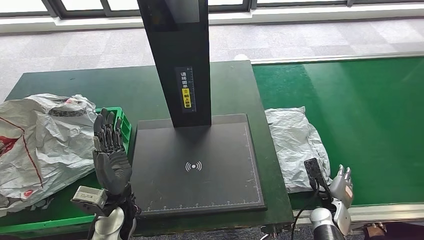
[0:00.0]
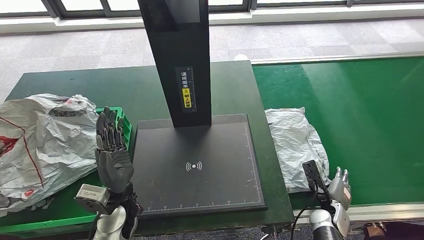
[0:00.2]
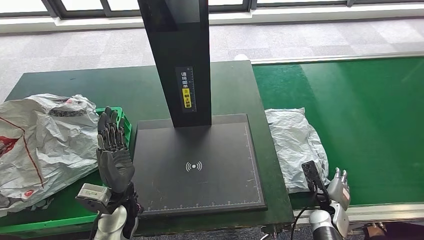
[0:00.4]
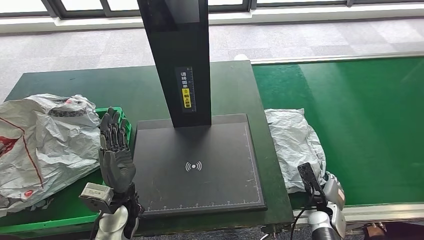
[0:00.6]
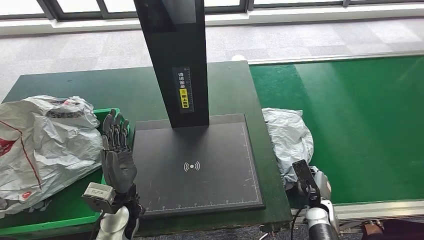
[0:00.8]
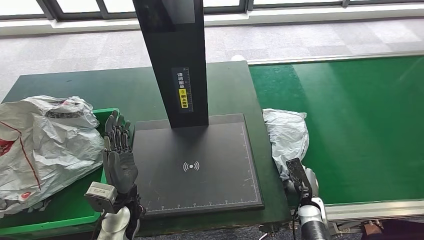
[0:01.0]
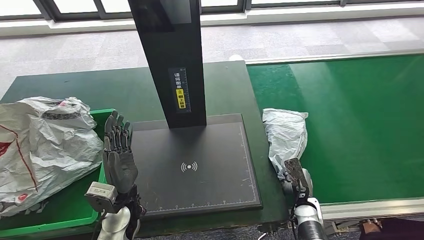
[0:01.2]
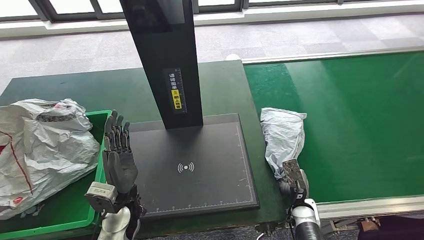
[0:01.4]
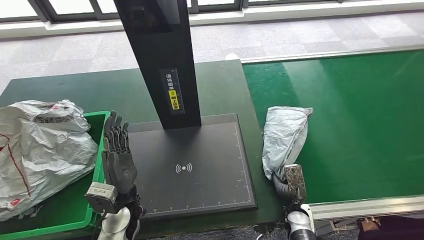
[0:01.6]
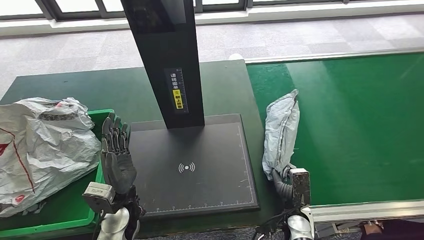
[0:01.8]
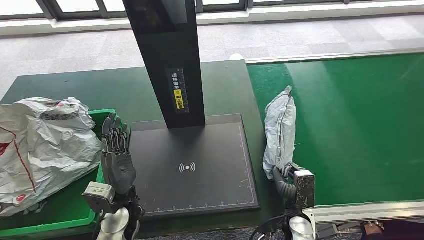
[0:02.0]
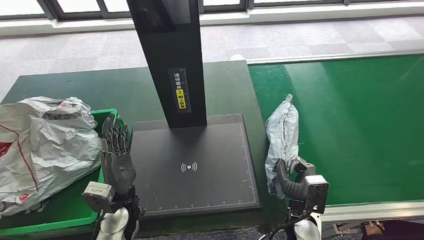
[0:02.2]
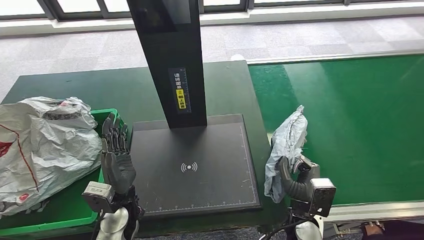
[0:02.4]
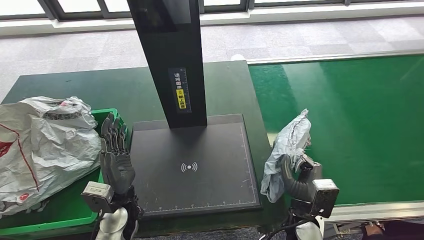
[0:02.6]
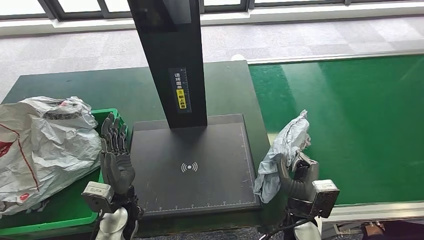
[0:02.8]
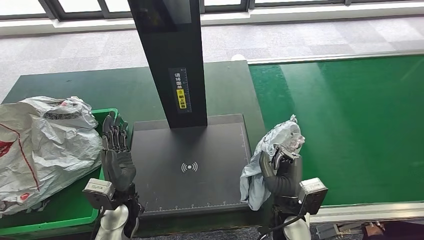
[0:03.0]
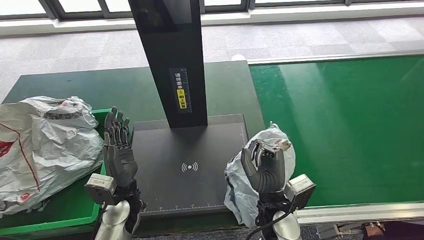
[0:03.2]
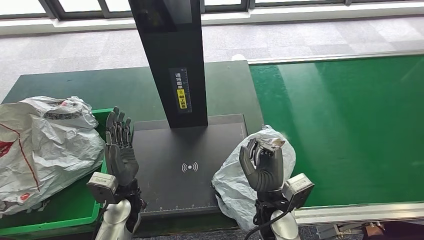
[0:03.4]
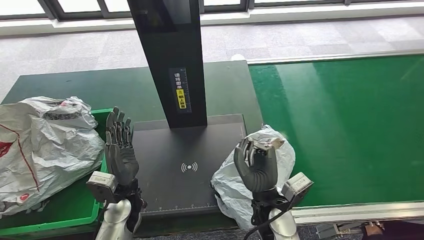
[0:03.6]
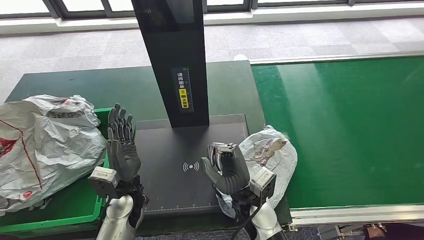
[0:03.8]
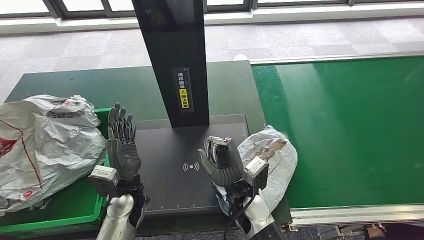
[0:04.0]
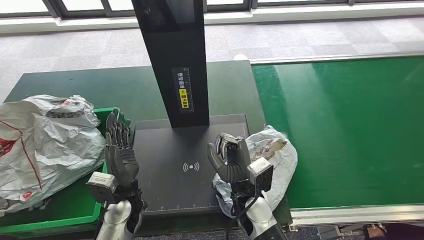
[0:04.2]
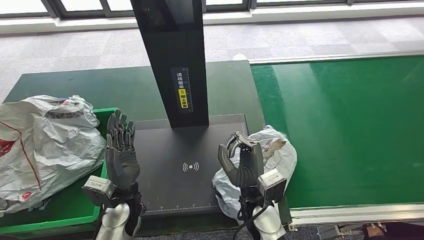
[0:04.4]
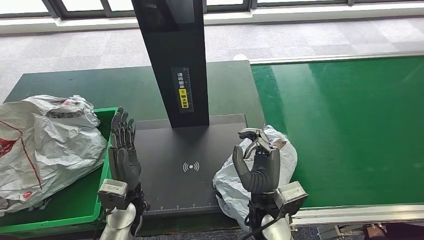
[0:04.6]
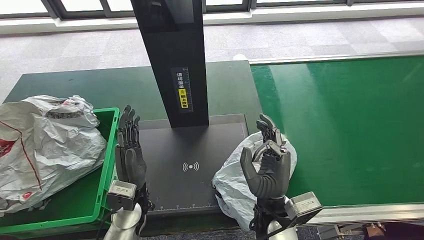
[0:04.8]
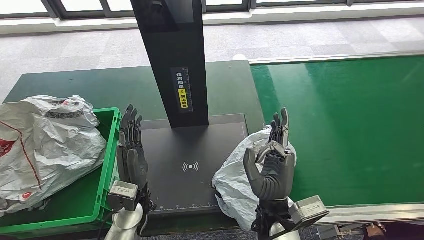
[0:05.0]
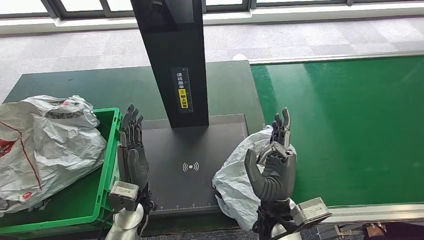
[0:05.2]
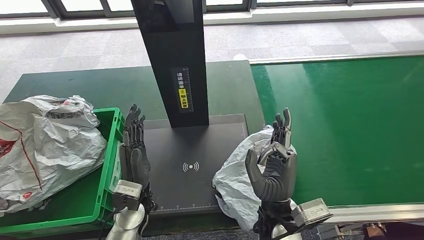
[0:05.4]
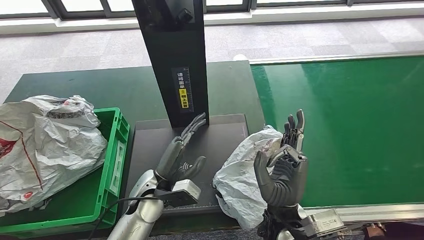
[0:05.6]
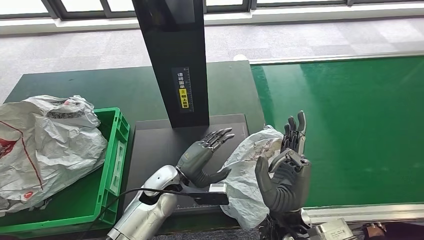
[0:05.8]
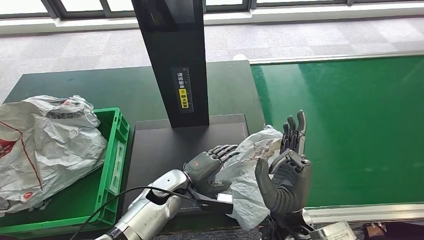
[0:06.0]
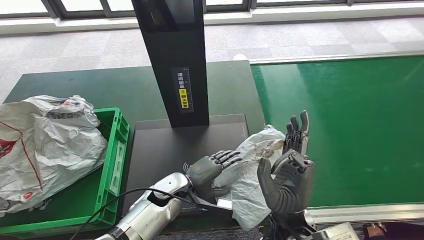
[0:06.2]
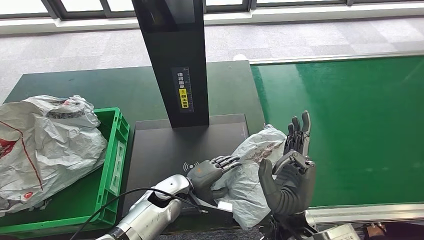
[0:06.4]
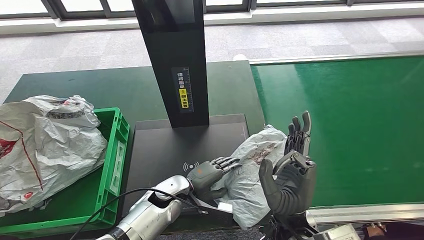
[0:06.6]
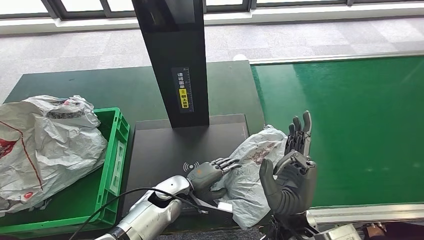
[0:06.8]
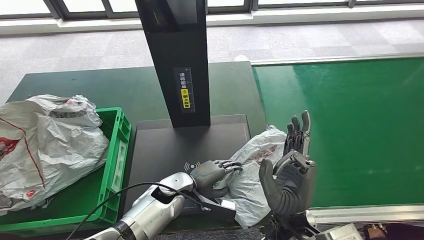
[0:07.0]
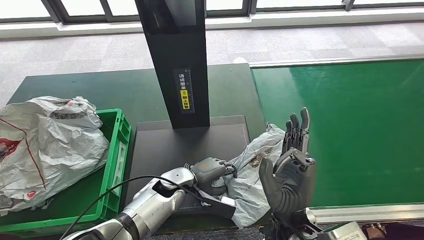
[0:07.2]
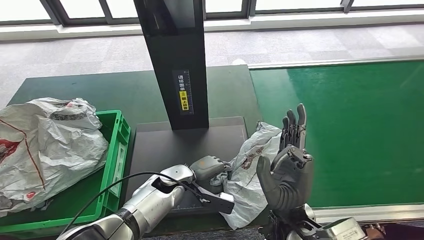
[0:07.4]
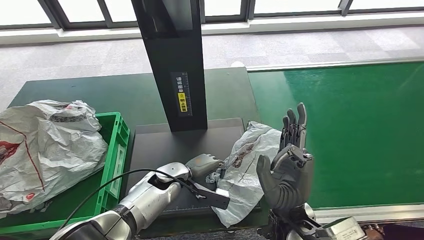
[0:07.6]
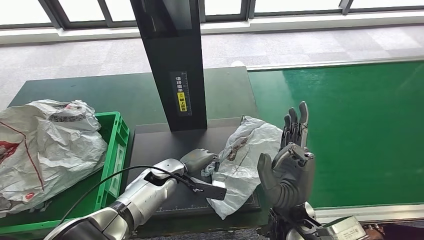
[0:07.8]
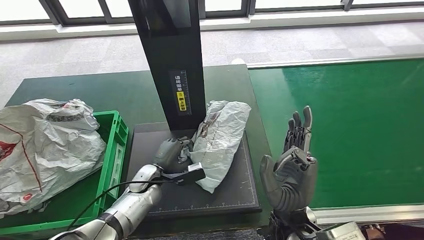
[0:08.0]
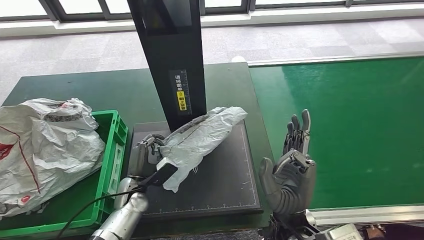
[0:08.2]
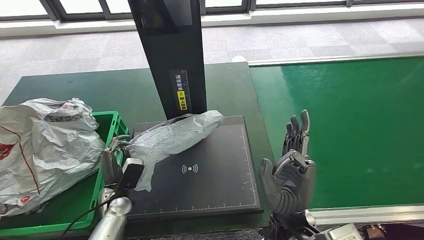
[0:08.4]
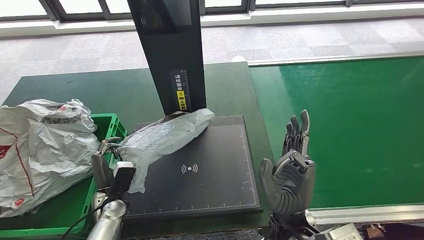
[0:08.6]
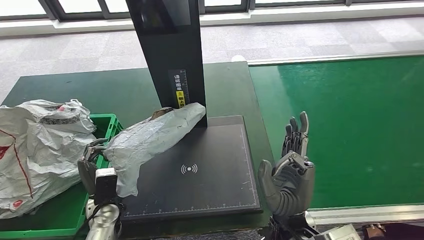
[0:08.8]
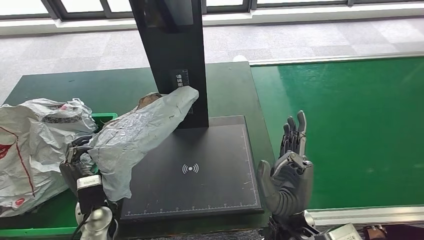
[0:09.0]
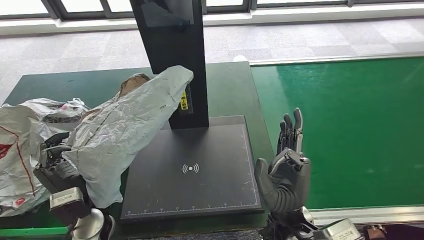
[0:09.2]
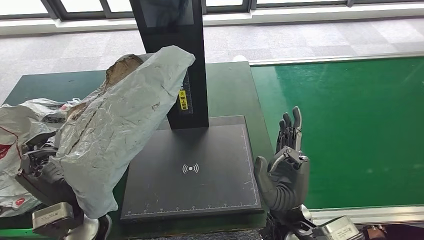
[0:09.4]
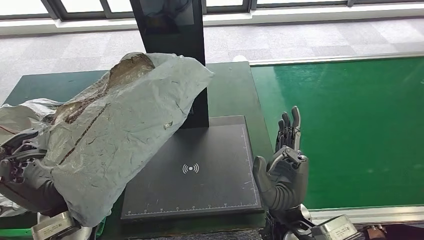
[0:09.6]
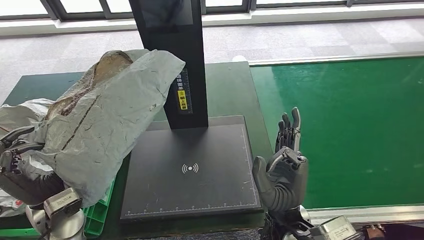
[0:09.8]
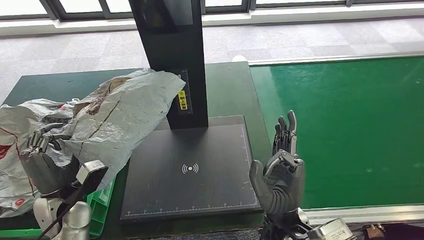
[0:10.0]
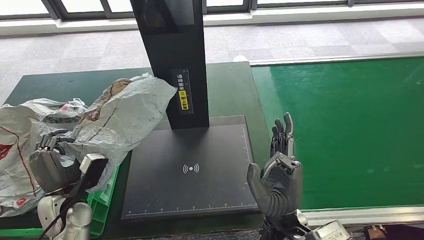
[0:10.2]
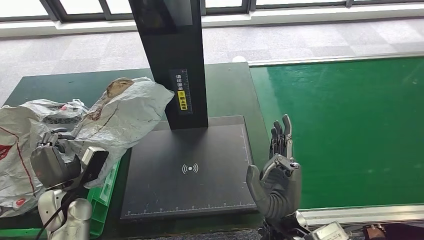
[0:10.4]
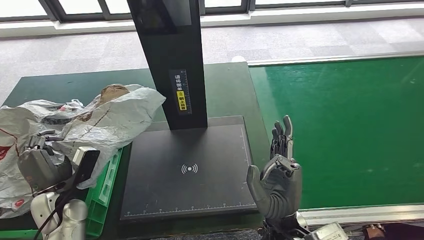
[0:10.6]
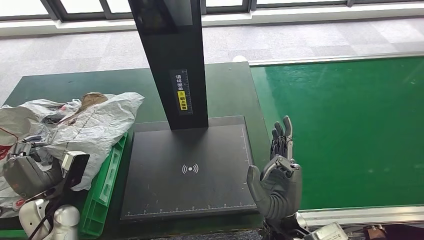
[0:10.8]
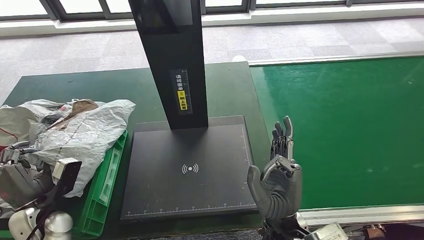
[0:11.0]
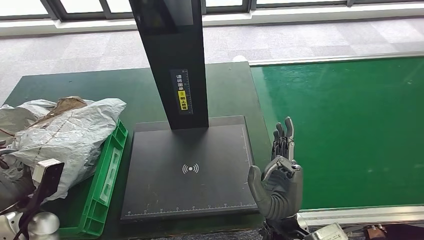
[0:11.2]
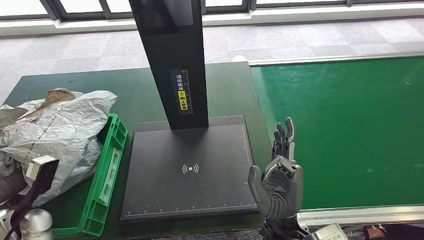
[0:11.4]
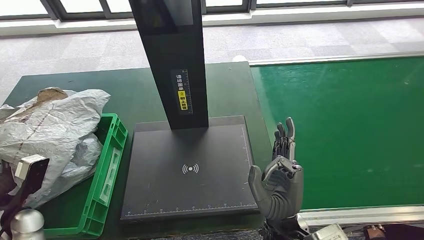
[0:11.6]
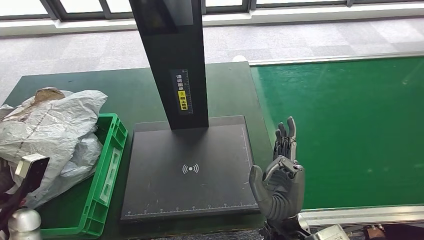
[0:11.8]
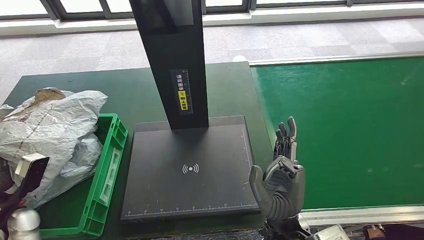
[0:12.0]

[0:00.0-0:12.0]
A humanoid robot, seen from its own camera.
Step, 0:00.0 to 0:02.8: Pick up the parcel from the conveyor belt.
Step, 0:03.0 to 0:06.4: Place the parcel onto the inbound machine.
Step, 0:06.6 to 0:09.0: Pick up the parcel from the inbound machine.
0:03.0 to 0:04.4: The right hand shifts approximately 10 cm to the left.
0:04.4 to 0:06.0: The left hand goes roughly 10 cm to the right and forward. The right hand travels backward and upward by about 5 cm.

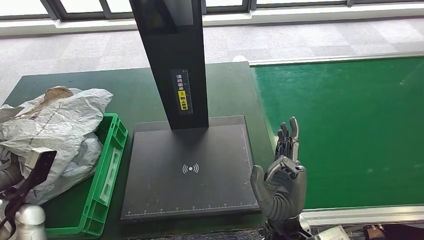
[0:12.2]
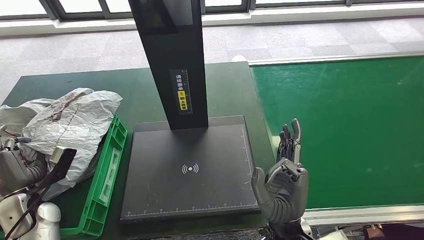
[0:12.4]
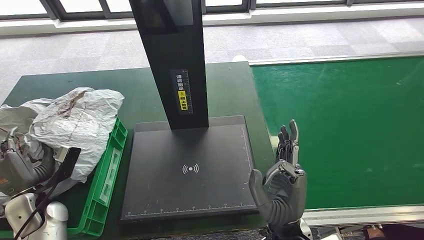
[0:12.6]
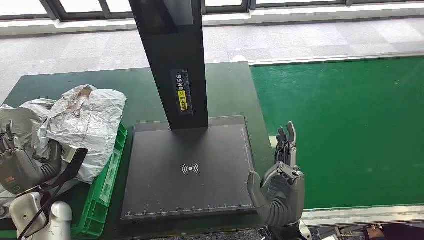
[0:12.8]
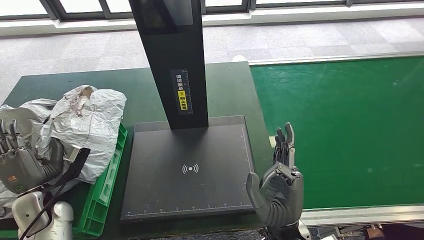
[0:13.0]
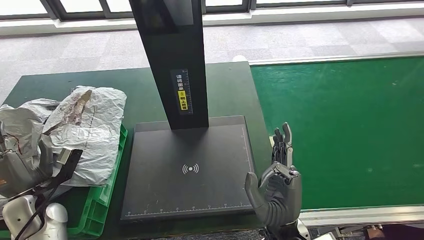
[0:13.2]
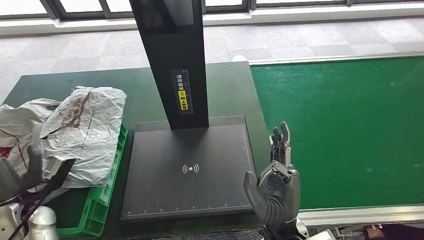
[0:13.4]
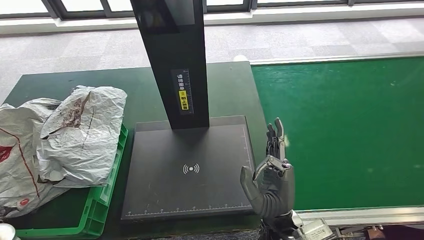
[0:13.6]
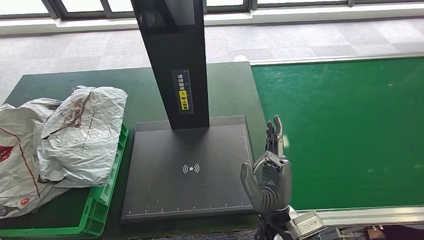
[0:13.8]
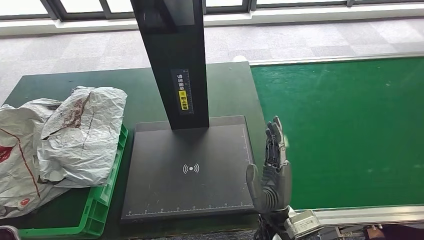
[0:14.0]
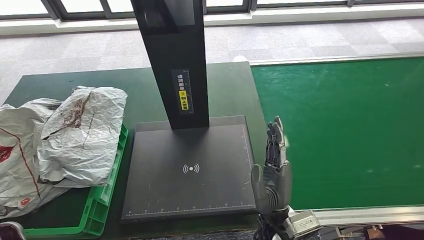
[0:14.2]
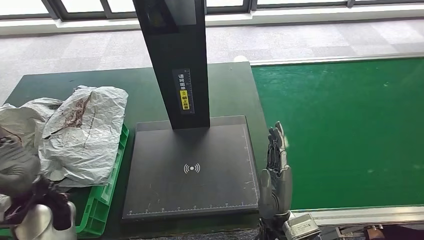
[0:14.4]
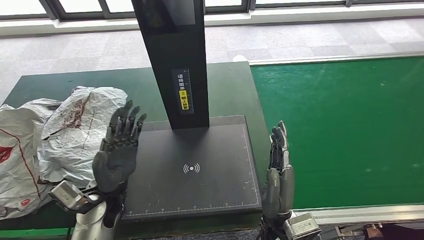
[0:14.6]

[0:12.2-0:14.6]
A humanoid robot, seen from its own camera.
Step, 0:12.2 to 0:14.6: Place the parcel into the delivery box.
0:12.2 to 0:13.4: The hands stay close to where they were, moving slightly.
0:13.4 to 0:14.6: The left hand goes about 20 cm to the right.
